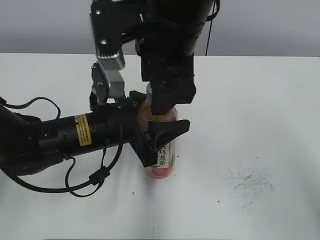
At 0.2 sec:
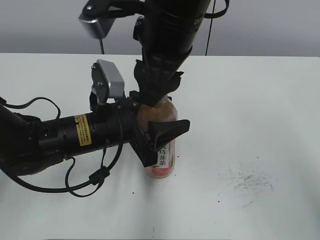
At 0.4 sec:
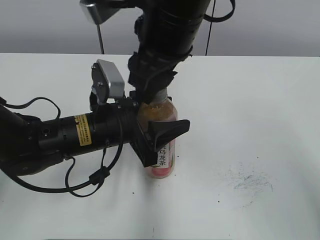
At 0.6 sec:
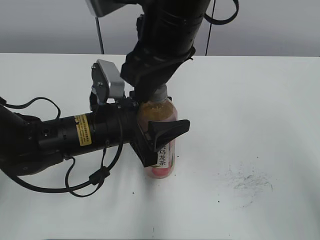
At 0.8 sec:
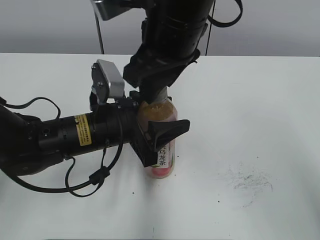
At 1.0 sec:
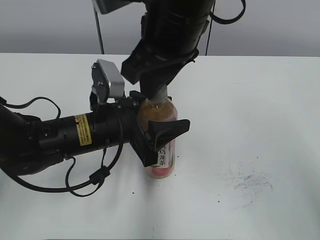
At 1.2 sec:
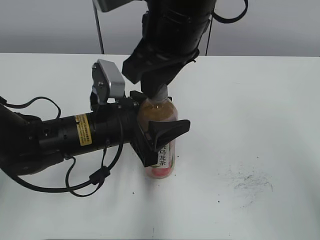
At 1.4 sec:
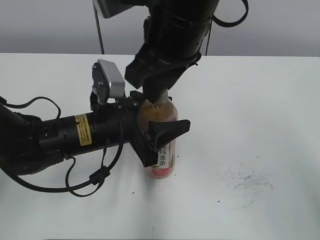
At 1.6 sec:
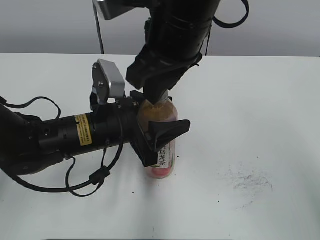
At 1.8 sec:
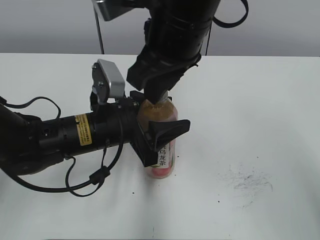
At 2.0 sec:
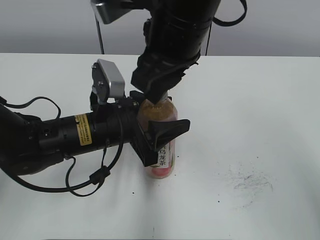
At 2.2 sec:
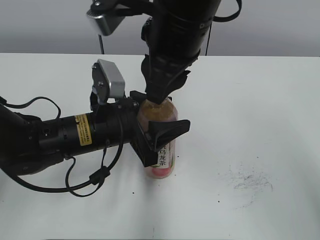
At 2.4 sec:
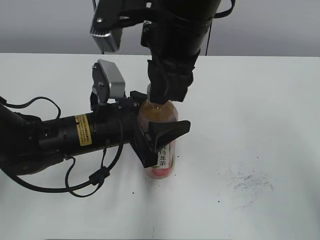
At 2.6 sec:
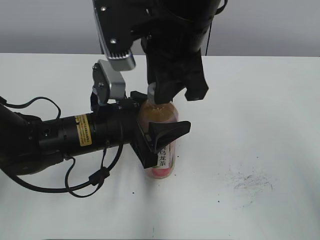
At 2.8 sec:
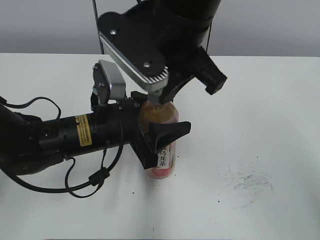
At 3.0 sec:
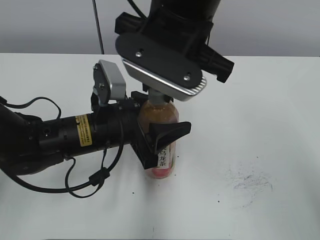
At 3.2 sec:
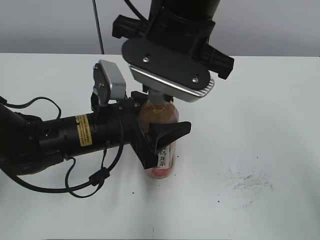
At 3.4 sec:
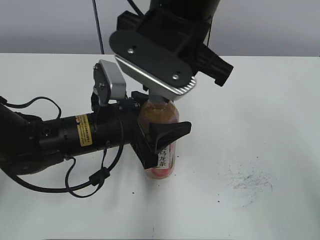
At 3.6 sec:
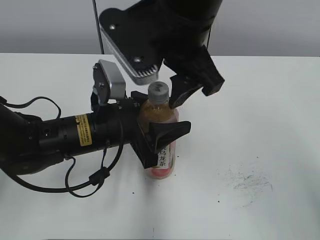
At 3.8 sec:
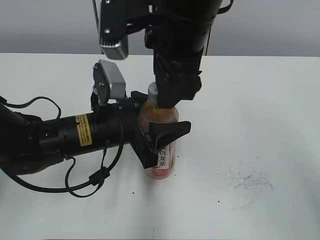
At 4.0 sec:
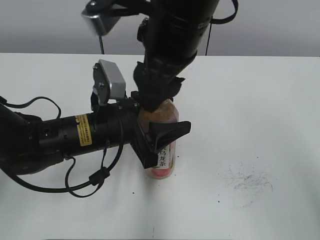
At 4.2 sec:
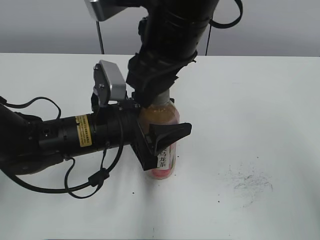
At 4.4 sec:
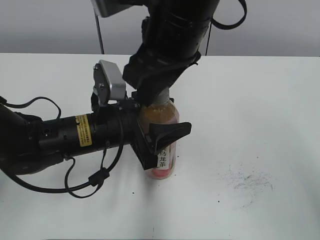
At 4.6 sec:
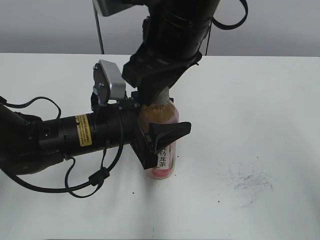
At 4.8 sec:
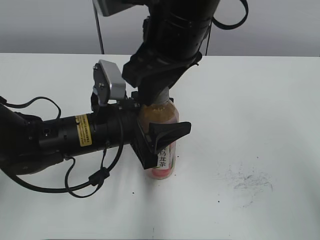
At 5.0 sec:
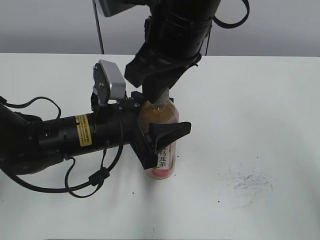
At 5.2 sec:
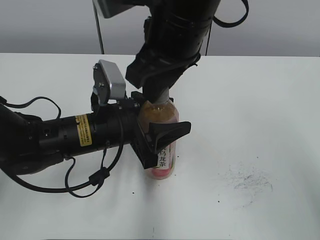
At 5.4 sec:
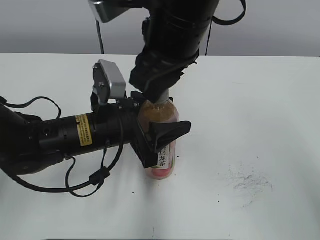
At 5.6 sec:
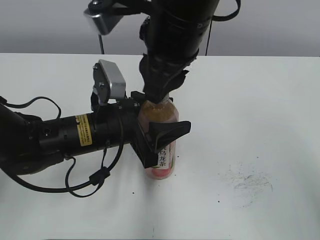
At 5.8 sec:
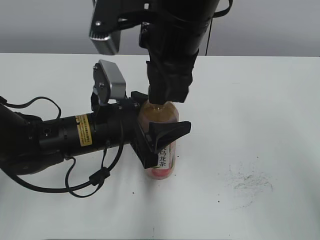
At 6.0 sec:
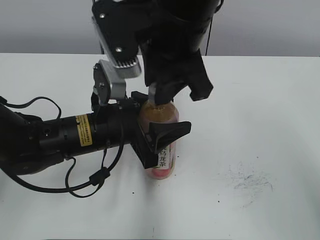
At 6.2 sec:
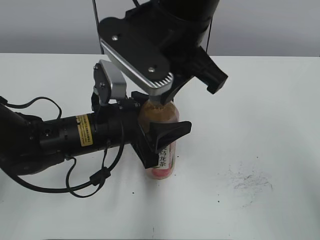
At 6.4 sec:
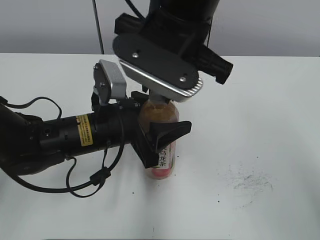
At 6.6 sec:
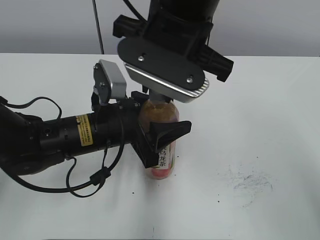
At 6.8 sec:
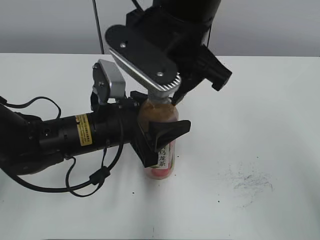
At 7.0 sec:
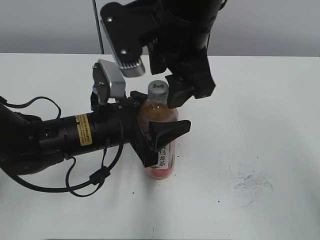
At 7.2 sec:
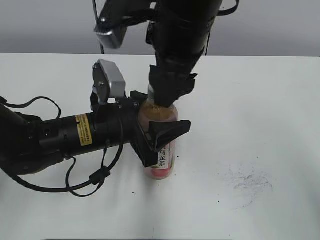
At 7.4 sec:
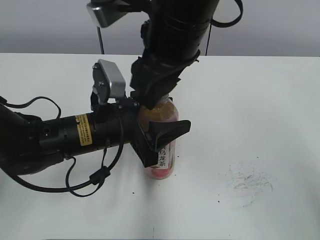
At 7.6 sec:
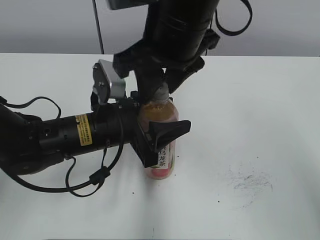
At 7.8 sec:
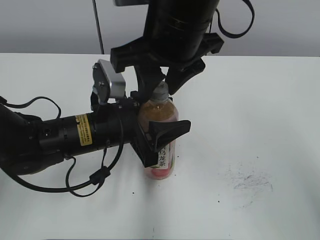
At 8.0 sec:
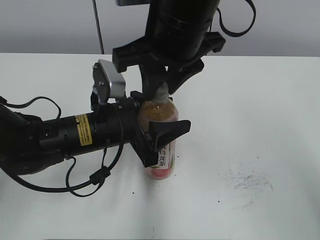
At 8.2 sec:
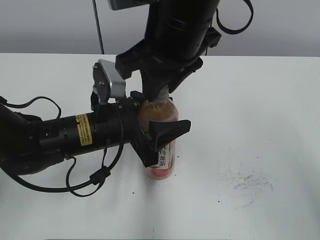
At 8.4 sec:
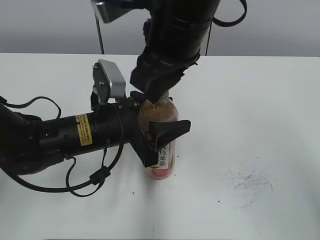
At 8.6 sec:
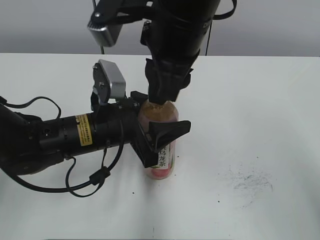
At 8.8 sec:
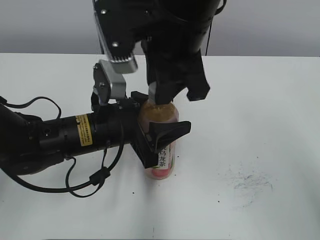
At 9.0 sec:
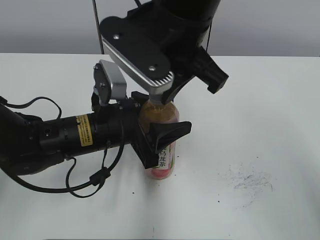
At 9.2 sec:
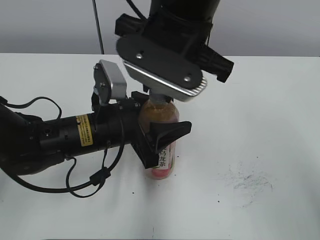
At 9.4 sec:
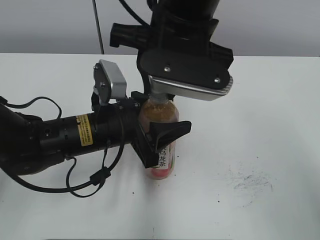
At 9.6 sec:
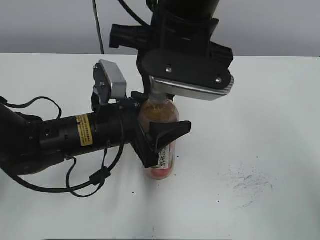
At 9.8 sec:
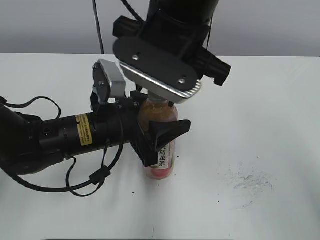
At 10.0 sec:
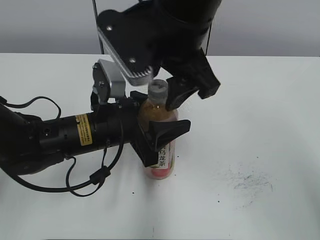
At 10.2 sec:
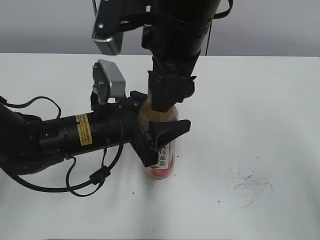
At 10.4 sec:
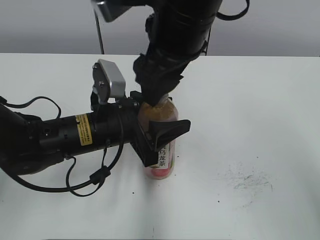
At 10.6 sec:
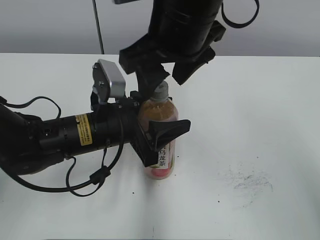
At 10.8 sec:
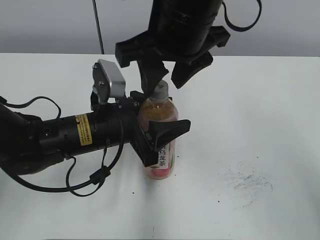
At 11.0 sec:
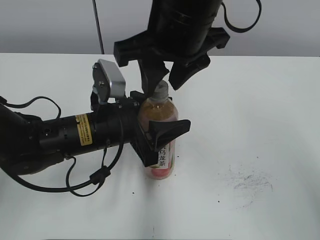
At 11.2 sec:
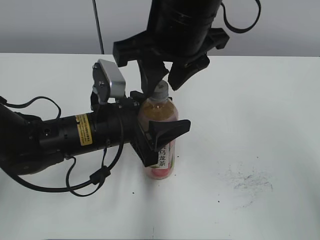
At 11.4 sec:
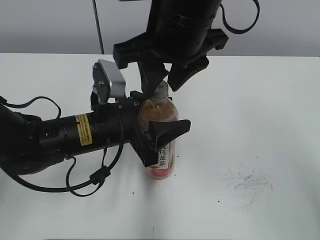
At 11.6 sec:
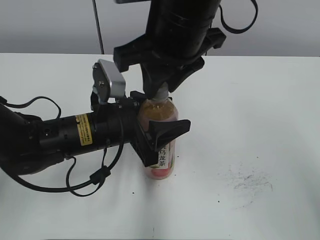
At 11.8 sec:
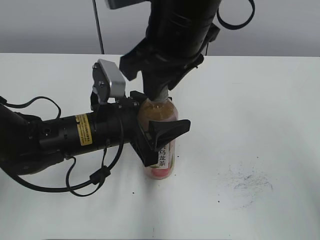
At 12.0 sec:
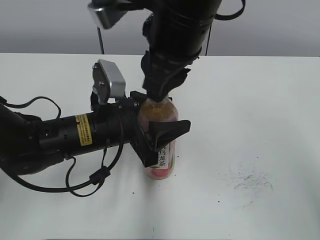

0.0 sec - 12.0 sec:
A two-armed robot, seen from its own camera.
0.0 sec - 1.6 sec: The right gripper closes up.
3.0 sec - 4.4 sec: The right gripper opens its fingers.
4.4 sec - 6.0 sec: The right gripper closes up.
6.0 sec - 7.6 sec: The right gripper opens up.
7.6 sec - 9.0 sec: The right gripper closes.
9.0 sec - 10.4 sec: The right gripper opens its fingers.
10.4 sec - 12.0 sec: The right gripper closes.

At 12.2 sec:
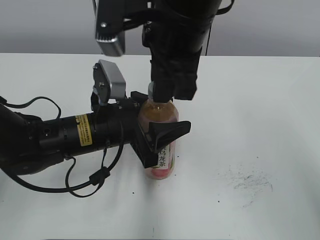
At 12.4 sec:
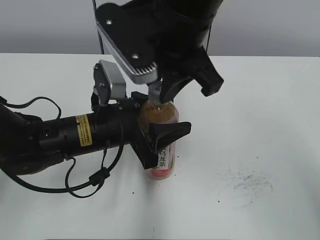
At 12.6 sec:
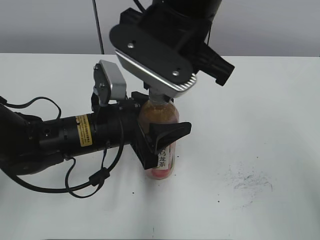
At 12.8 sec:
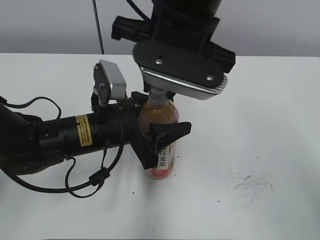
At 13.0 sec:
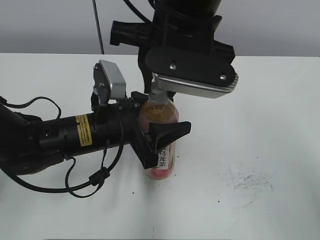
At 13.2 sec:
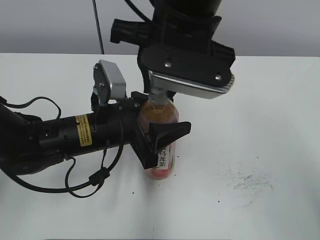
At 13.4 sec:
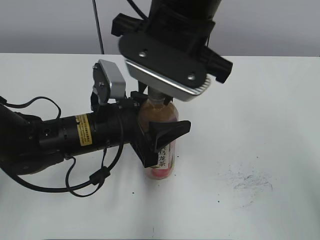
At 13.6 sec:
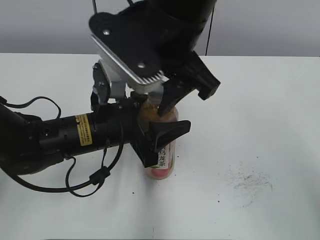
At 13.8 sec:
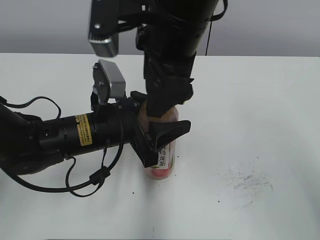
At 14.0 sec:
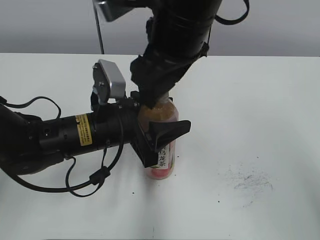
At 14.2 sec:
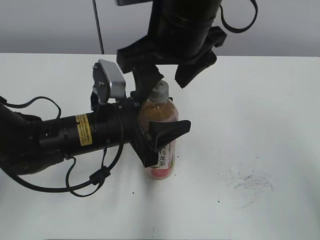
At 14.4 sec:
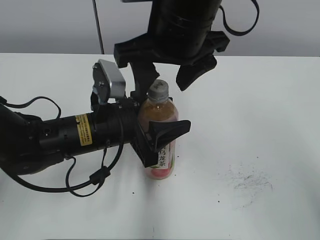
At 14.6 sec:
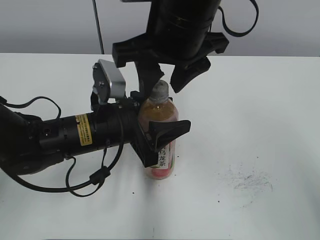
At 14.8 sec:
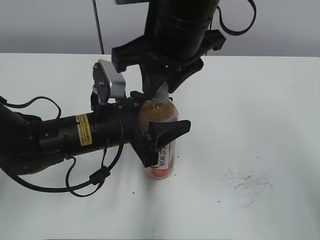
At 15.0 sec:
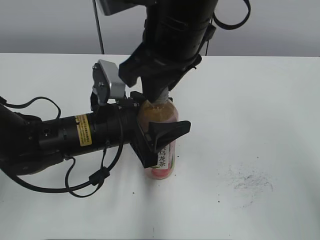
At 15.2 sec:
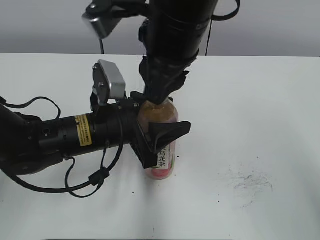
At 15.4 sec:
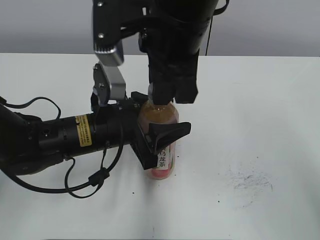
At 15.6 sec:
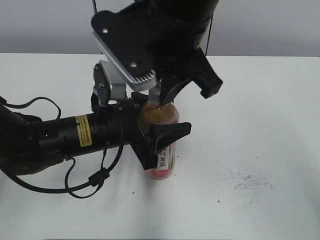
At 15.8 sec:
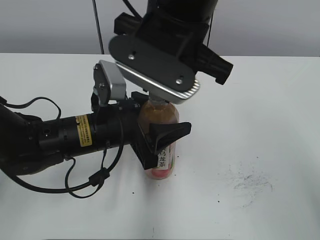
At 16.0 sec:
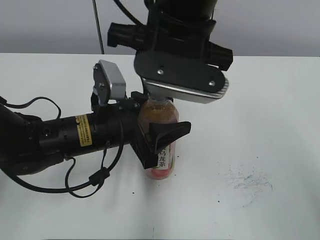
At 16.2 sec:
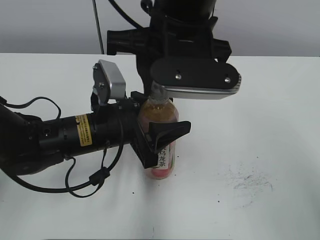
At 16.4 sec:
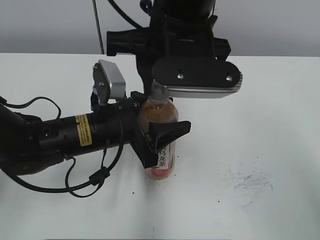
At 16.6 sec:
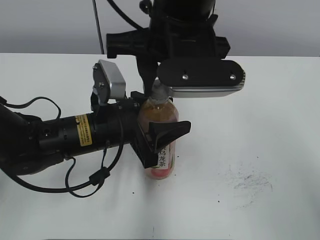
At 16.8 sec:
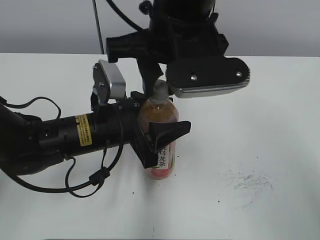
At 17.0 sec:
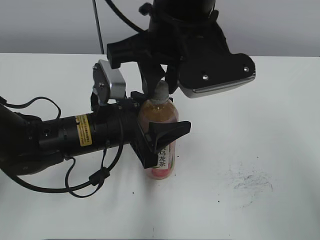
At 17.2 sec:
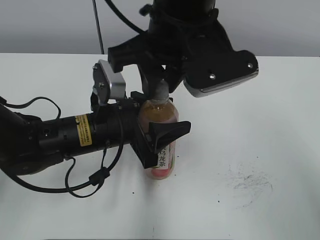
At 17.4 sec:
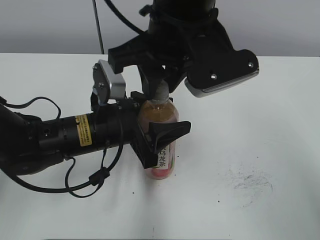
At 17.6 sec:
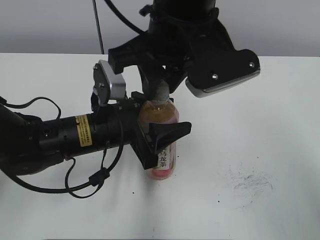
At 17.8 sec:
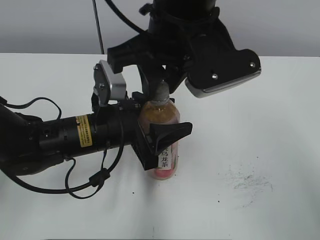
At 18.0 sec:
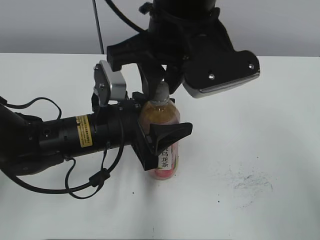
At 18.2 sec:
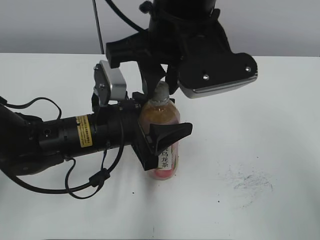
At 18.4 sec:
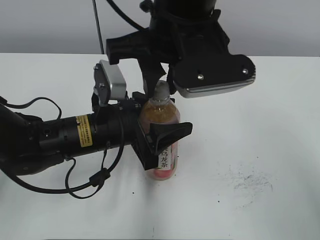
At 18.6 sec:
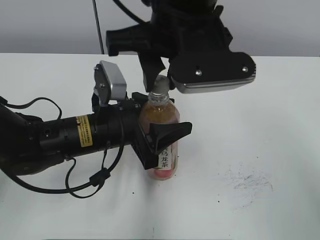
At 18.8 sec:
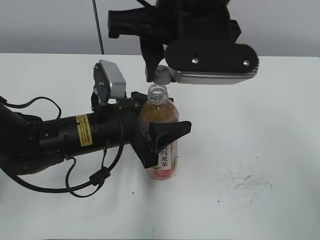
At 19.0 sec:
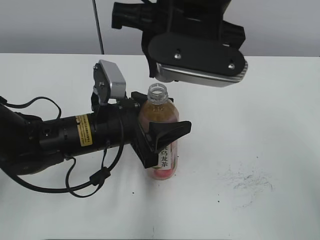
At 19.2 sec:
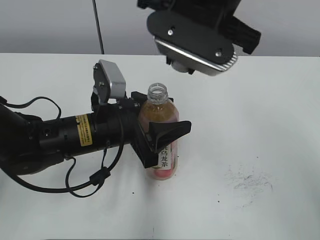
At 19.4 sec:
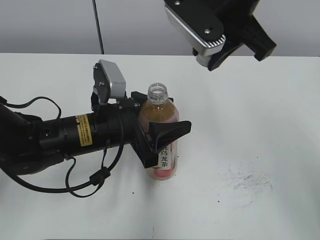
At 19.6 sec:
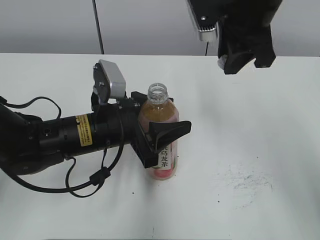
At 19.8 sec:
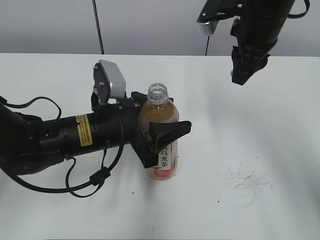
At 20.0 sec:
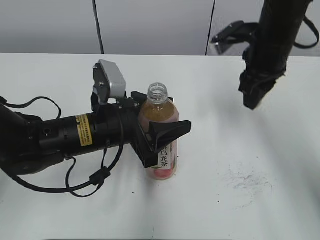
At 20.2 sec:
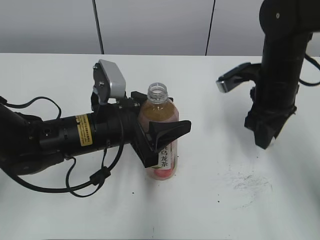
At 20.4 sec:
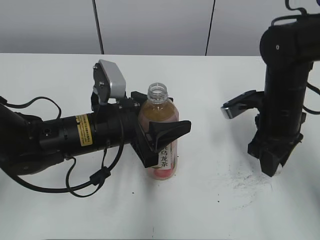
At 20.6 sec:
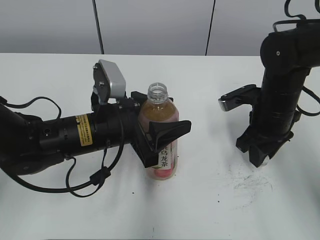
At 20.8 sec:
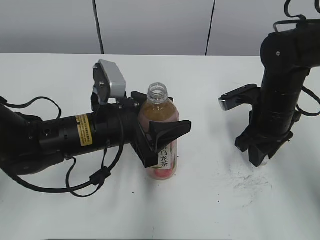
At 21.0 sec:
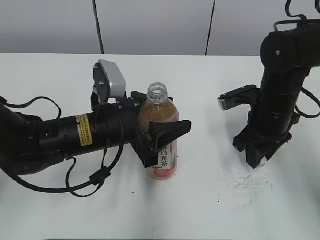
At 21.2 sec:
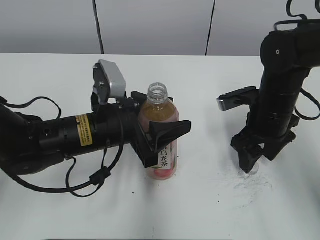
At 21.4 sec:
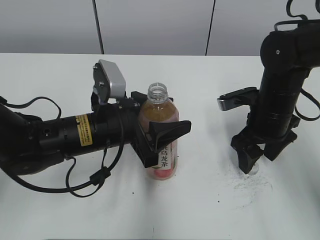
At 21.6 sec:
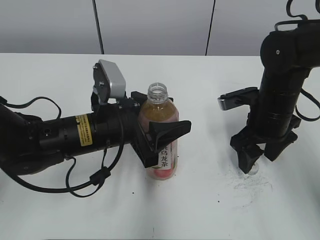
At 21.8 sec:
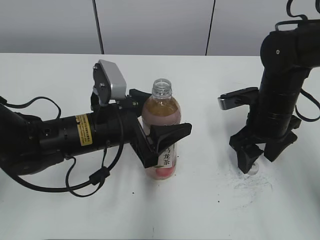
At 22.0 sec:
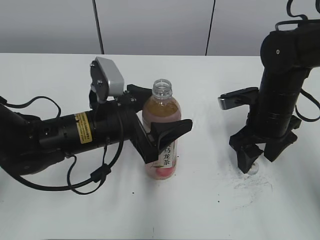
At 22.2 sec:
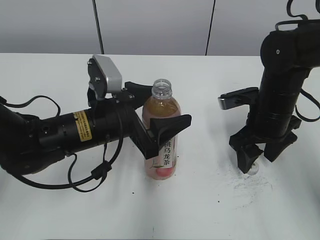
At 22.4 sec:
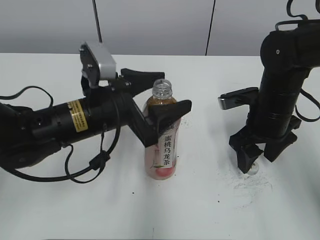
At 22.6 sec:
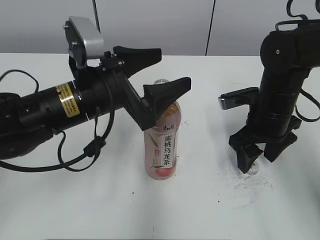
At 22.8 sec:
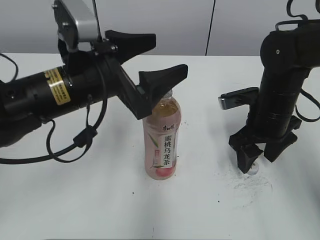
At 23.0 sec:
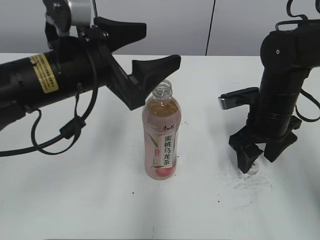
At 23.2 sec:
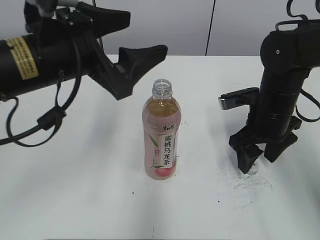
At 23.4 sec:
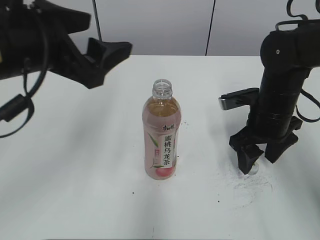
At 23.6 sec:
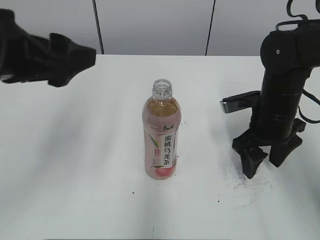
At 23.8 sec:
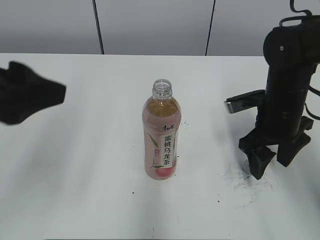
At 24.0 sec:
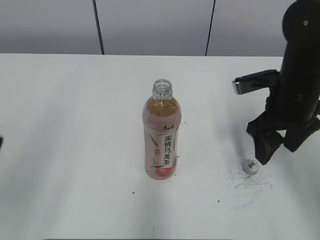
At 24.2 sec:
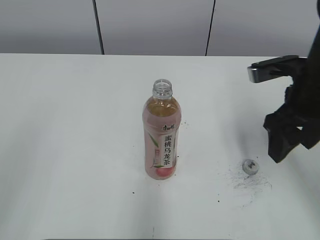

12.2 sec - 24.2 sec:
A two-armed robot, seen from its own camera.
Step, 19.0 sec - 21.0 sec: Place the bottle cap on the right.
Step, 21.2 sec - 22.2 sec: Place the Peach Oolong Tea with the left hand.
12.2 sec - 13.8 sec: The right gripper opens.
13.8 sec - 15.2 sec: The right gripper closes.
16.6 sec - 18.2 sec: There are only small adjustments of the grippers.
18.2 sec - 19.8 sec: The right gripper goes about 15 cm to the right and forward.
19.8 sec - 21.2 sec: The right gripper heads downward, covering some 15 cm, and opens up.
21.2 sec - 22.6 sec: The left gripper moves upward, approximately 5 cm, and opens up.
22.6 sec - 24.2 sec: The right gripper shifts about 10 cm upward. Meanwhile the left gripper travels backward, to the left and upward by some 30 cm.
